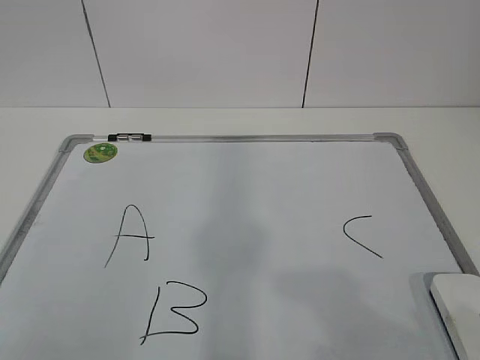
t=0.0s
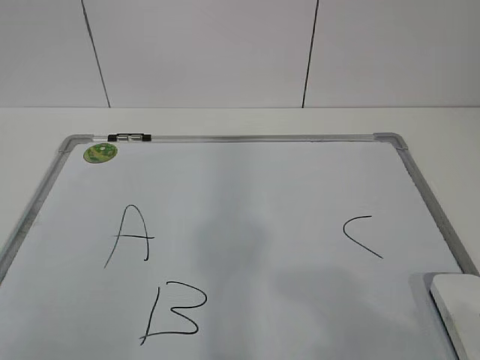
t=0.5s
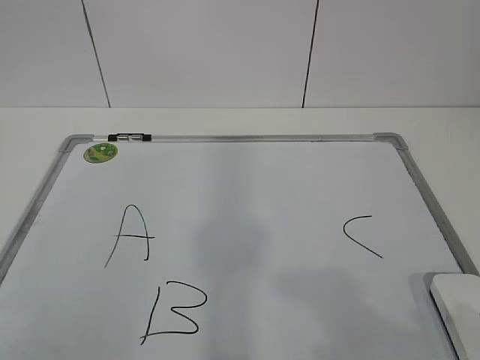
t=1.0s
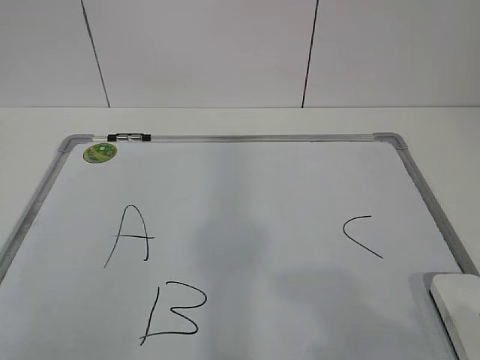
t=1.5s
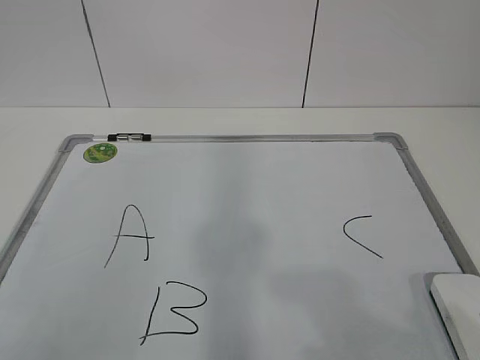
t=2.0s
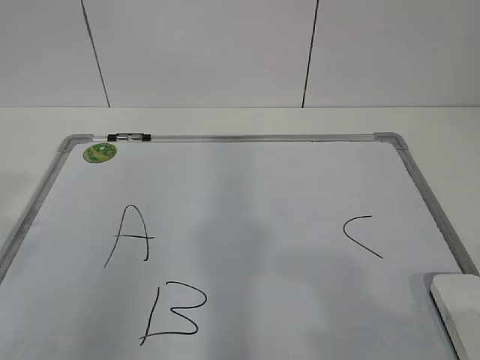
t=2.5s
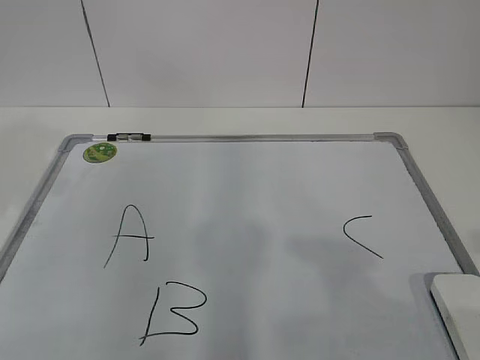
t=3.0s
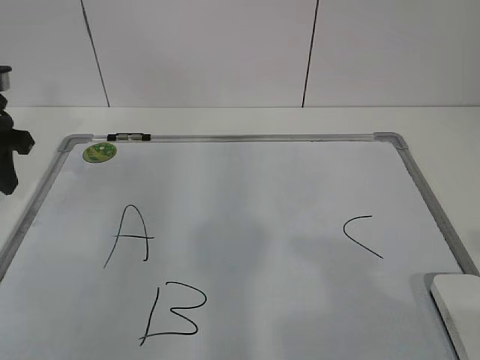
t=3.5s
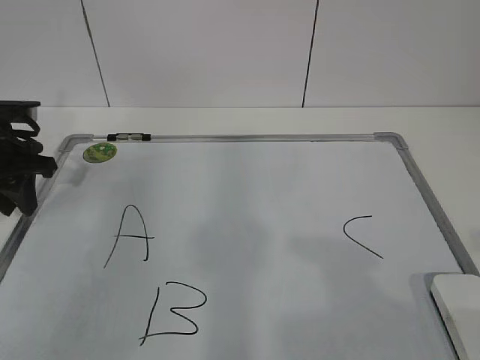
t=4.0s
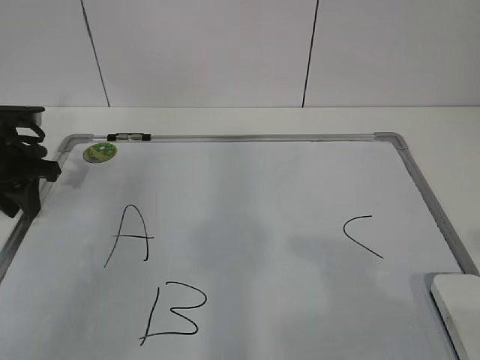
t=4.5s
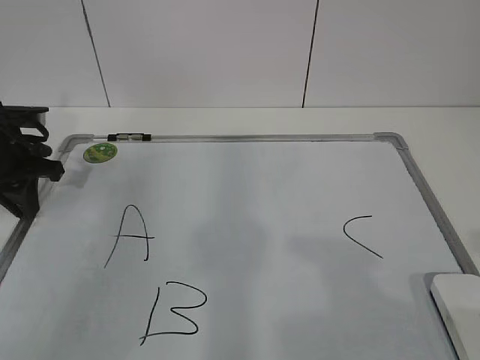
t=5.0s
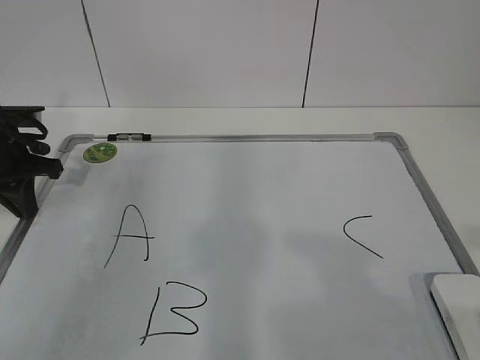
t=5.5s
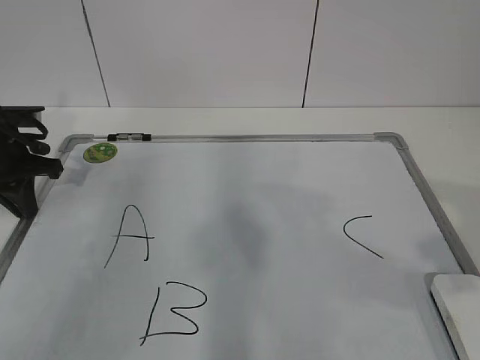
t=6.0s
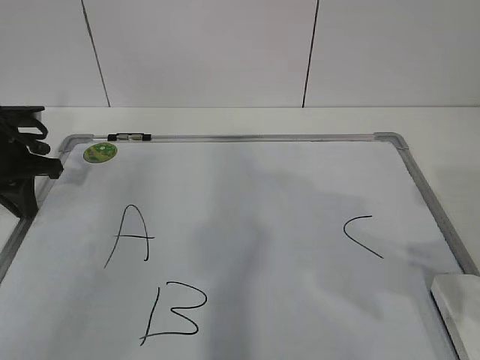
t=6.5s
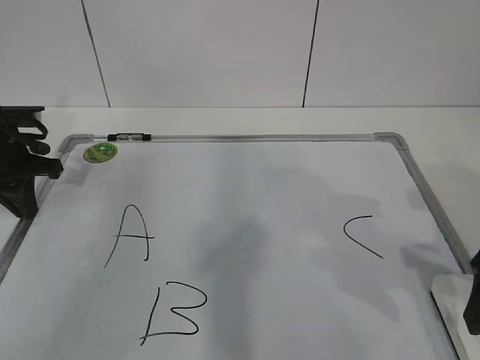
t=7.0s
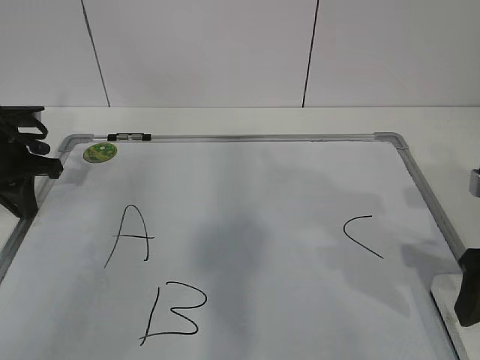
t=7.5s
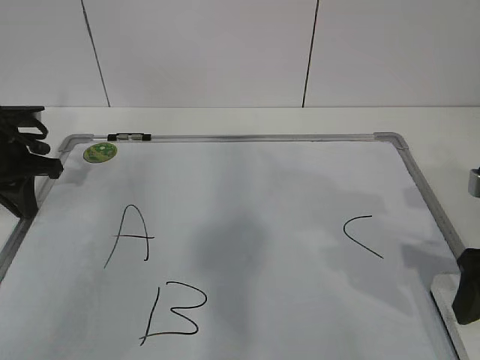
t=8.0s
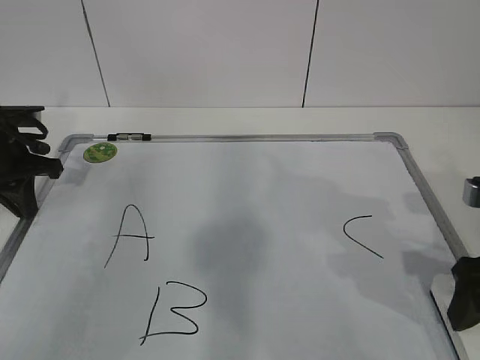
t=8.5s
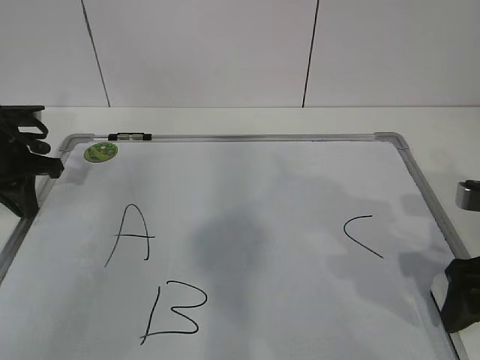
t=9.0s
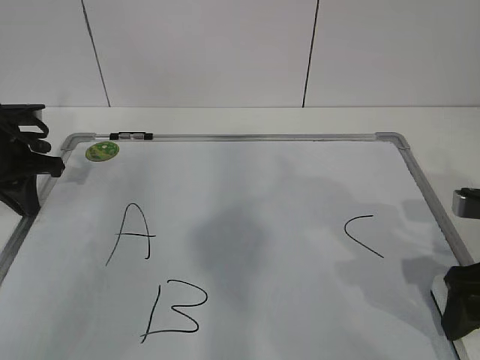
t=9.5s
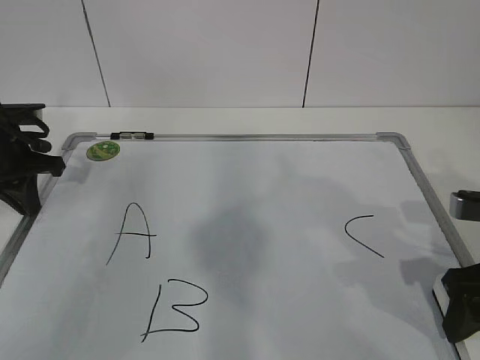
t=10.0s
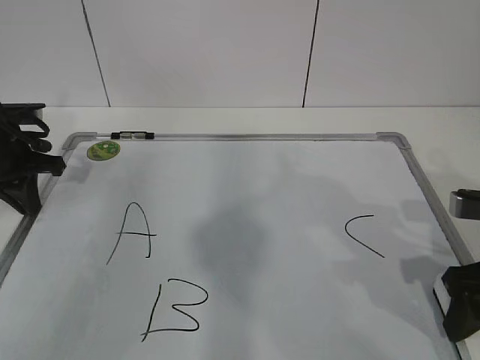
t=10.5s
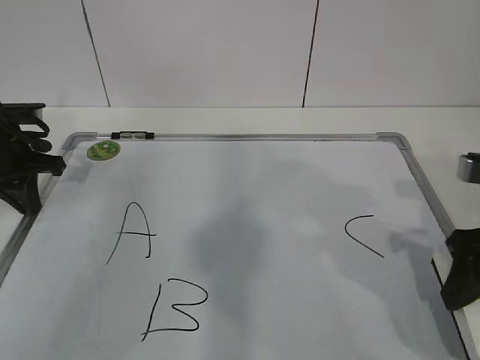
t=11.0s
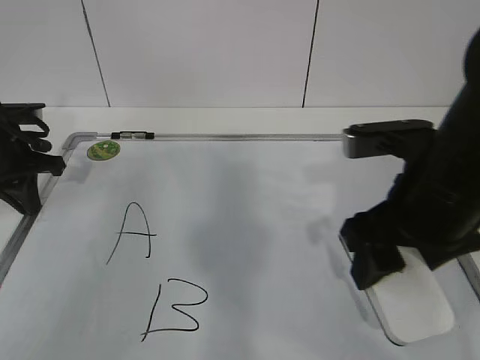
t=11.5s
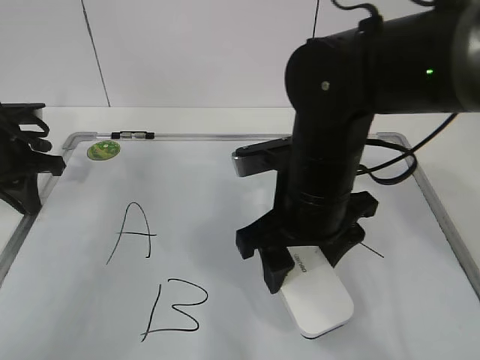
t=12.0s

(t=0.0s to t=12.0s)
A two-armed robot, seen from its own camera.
Task of the whole recording: pick up the eraser on the blackboard and erase the letter "B".
Step, t=0.0s - t=4.0s: Hold the drawing board steady with your left hand.
t=2.0s - t=4.0s: The left gripper heads forward, covering approximately 35 cm.
t=4.0s - t=6.0s: The left gripper closes up.
t=6.0s - t=8.0s: The right gripper is displaced forward and downward by some 15 cm, and opens its fingers.
t=8.0s - t=10.0s: The right gripper closes its fingers.
t=10.0s - t=12.0s: The right gripper heads to the left, covering about 20 cm.

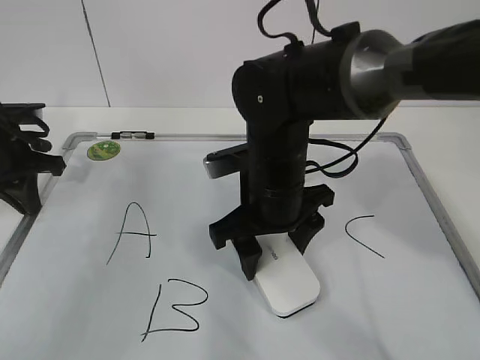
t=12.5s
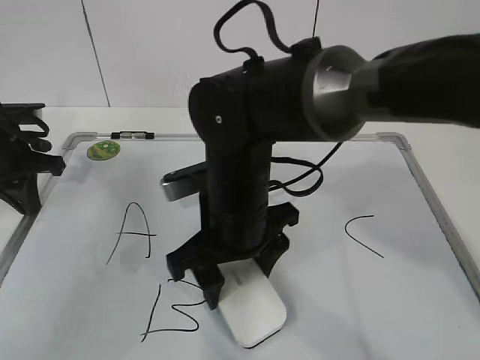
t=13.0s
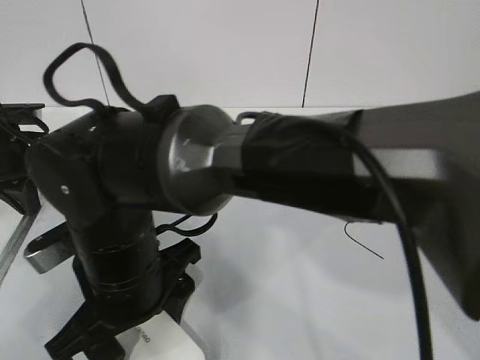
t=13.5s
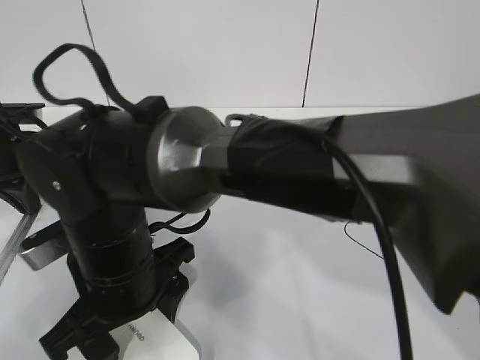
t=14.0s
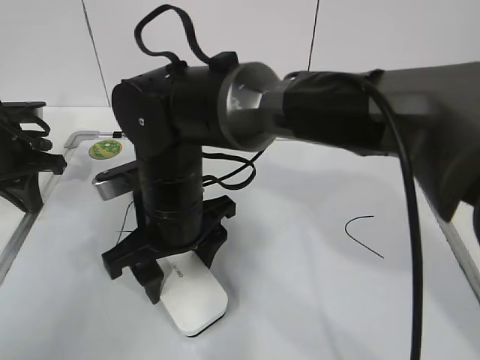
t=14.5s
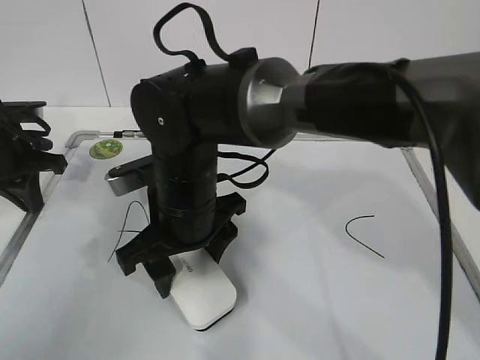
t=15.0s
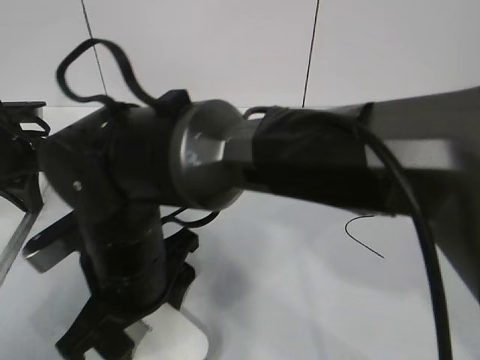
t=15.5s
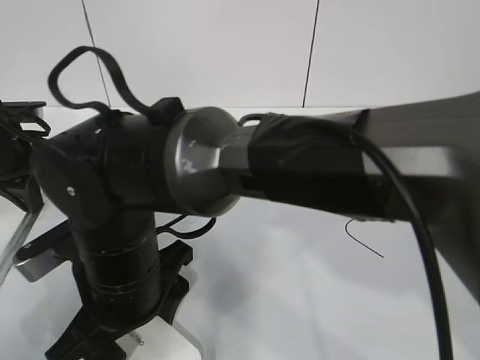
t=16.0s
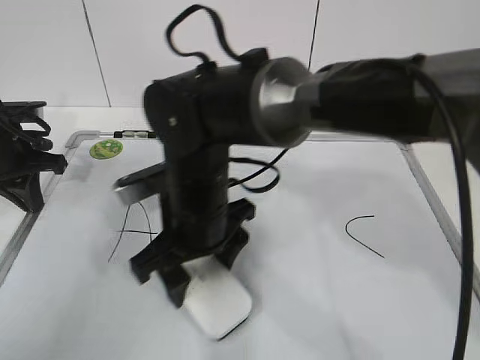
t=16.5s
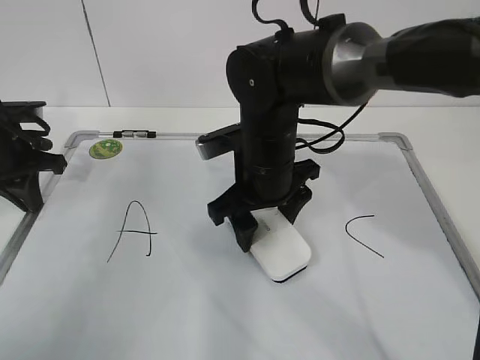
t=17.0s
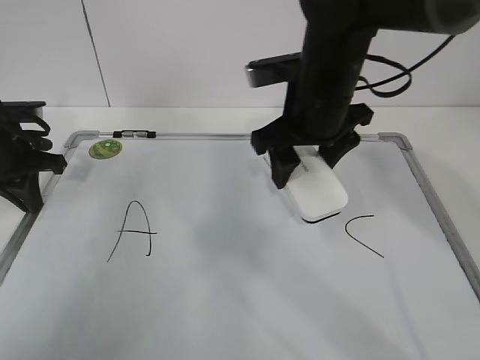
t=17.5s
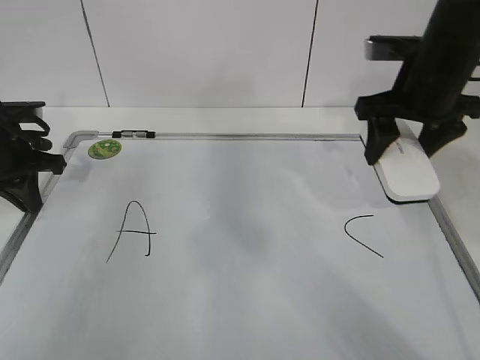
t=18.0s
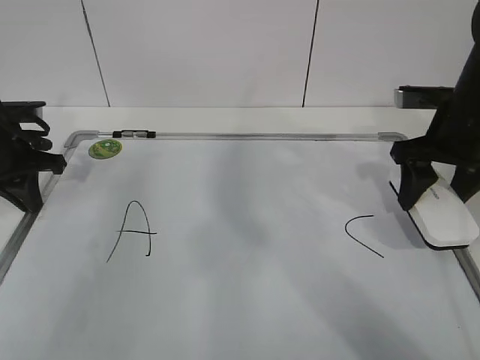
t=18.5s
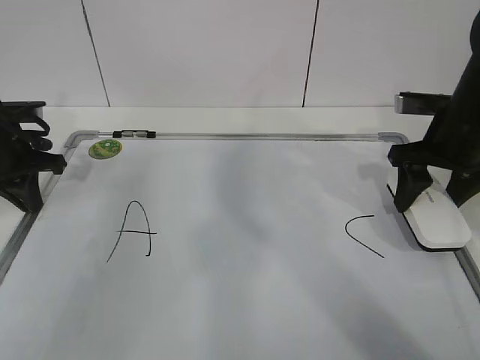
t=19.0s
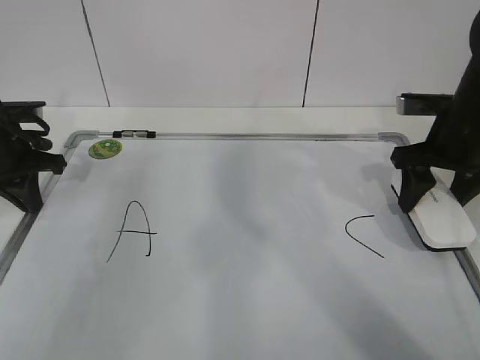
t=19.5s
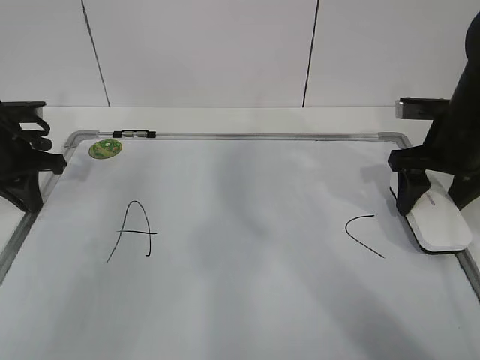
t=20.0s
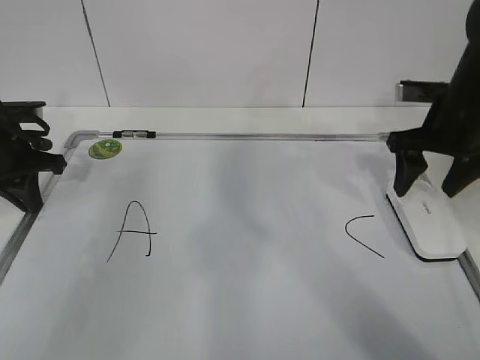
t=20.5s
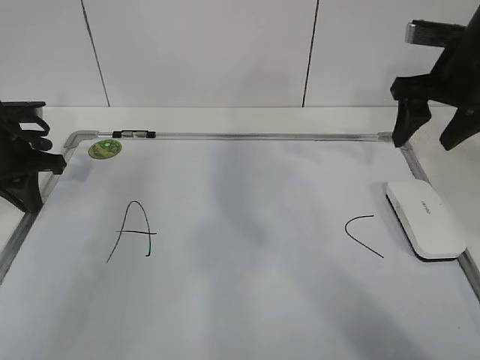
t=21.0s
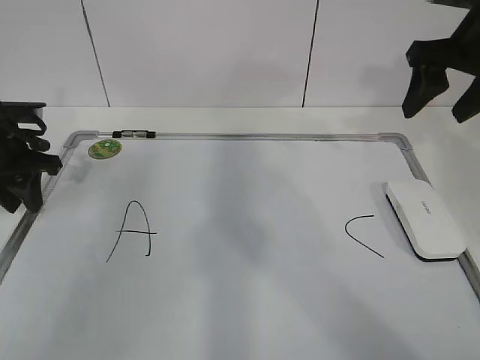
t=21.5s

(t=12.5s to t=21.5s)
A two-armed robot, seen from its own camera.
Task of the whole recording: pick up the eraser on the blackboard and erase the letter "B".
Step, t=14.5s - t=16.5s: Put down the eraser with your right hand.
t=12.5s - t=14.5s: The right gripper travels to the left by about 10 cm.
t=14.5s - t=17.0s: The right gripper goes approximately 10 cm to the right and forward.
t=17.0s - t=19.5s: The right gripper shifts approximately 25 cm to the right.
t=19.5s - t=21.5s: The right gripper is displaced upward by some 10 cm, and opens its fingers; the left gripper opens.

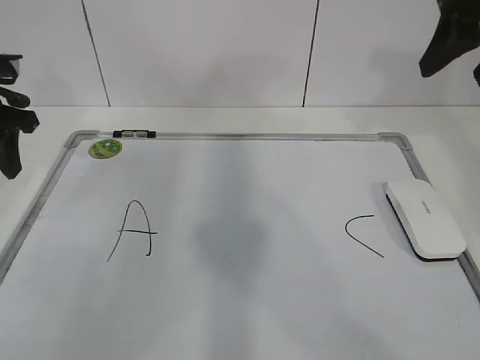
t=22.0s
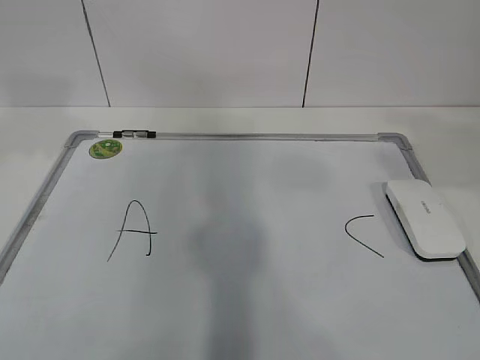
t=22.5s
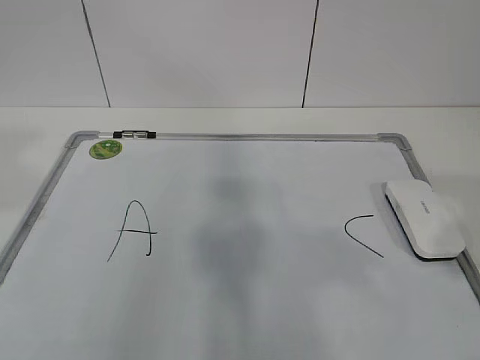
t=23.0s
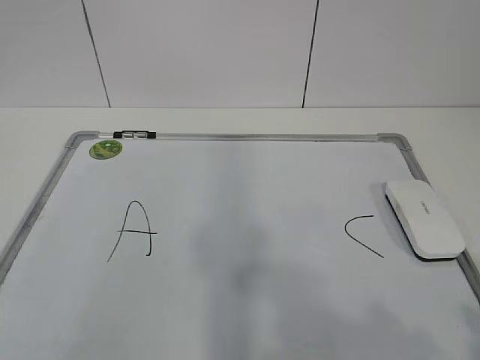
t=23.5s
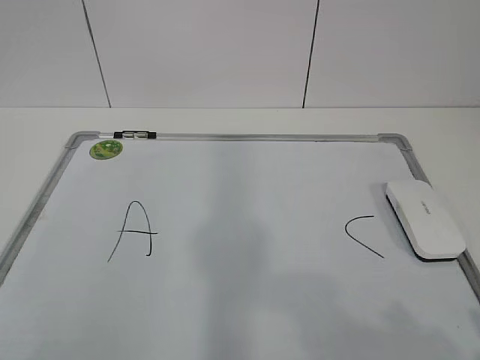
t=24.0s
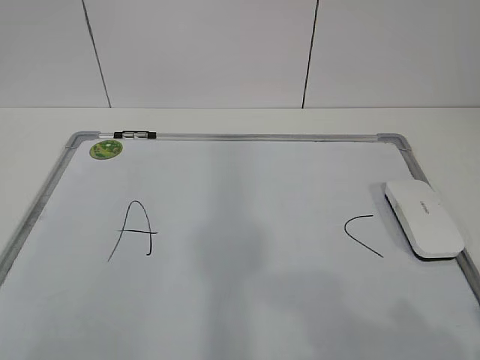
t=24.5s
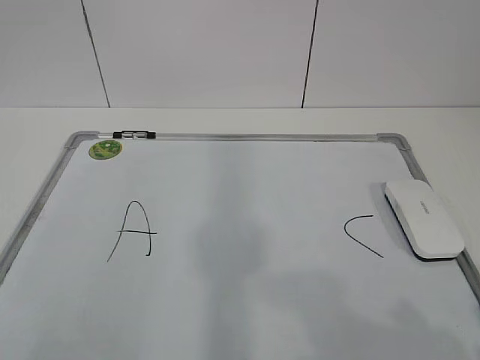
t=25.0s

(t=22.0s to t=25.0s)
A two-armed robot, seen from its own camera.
Task of the whole recording: pick up the eraser on the blackboard and erase the letter "B".
t=22.0s - t=23.5s: The two grippers go about 35 cm backward.

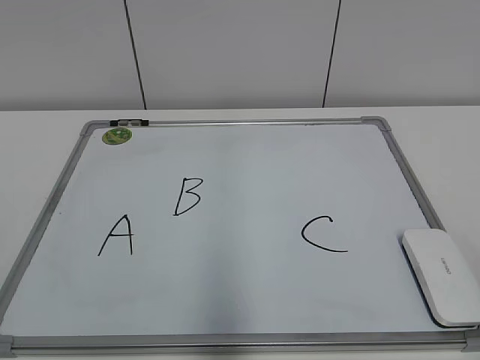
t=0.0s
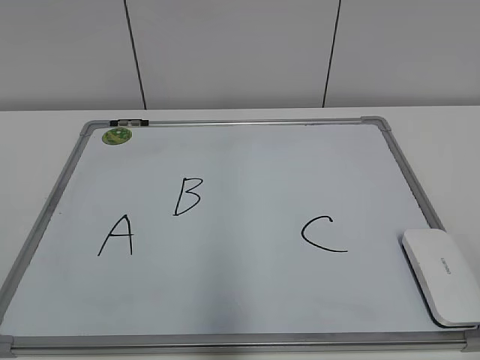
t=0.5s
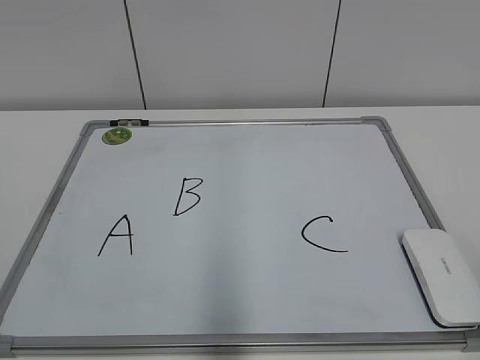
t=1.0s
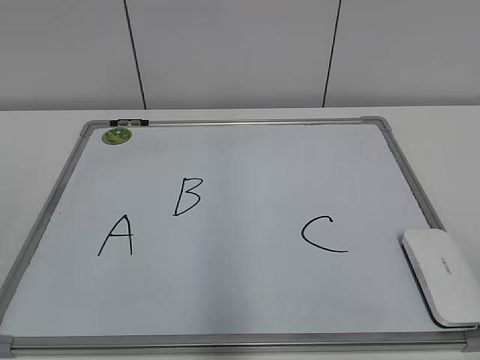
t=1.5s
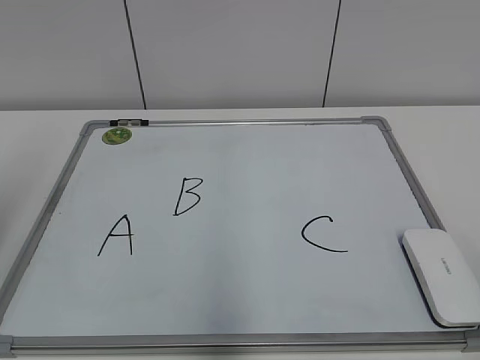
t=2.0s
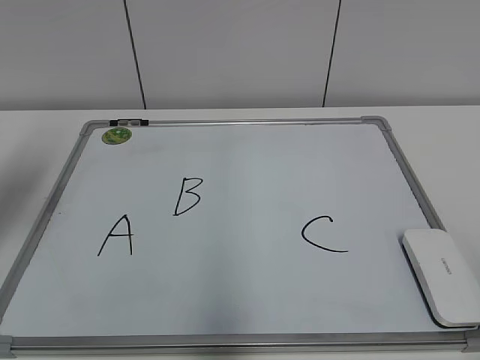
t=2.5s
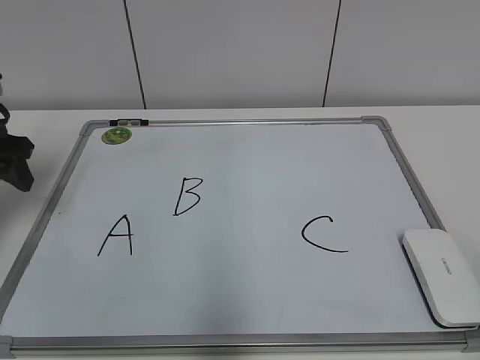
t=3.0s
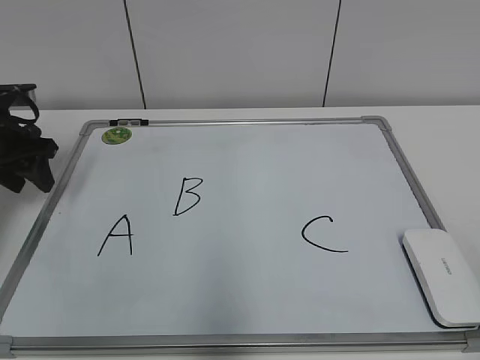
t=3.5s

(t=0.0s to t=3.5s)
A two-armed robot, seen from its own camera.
Task of the whole recording: pick up the eraser on the blackboard and erase the letter "B".
t=2.0s - t=3.5s: The left gripper heads forward and downward, covering roughly 30 cm.
